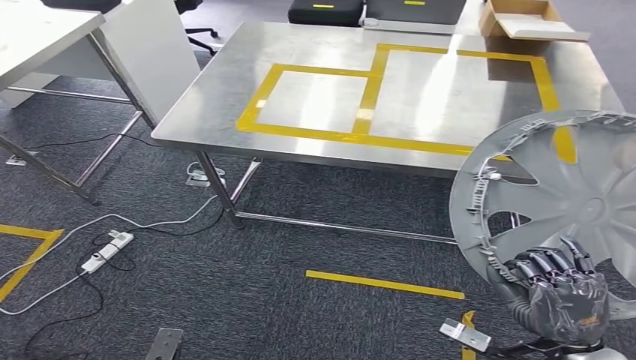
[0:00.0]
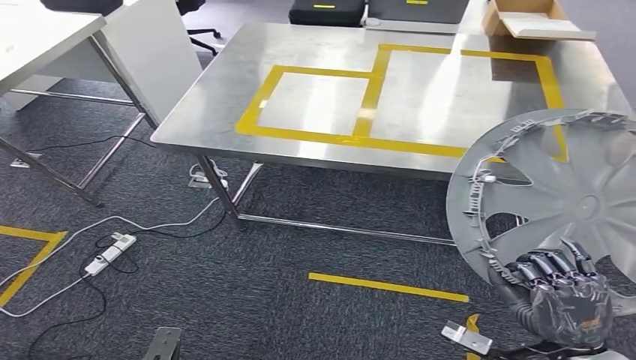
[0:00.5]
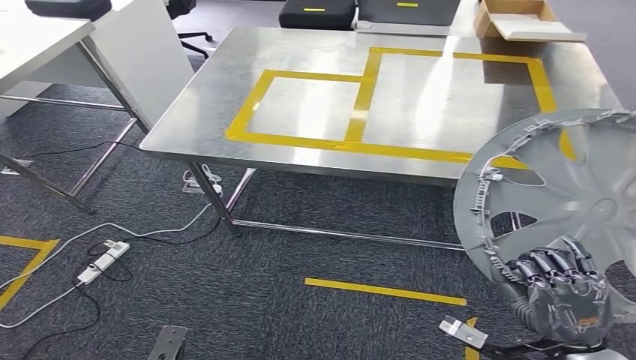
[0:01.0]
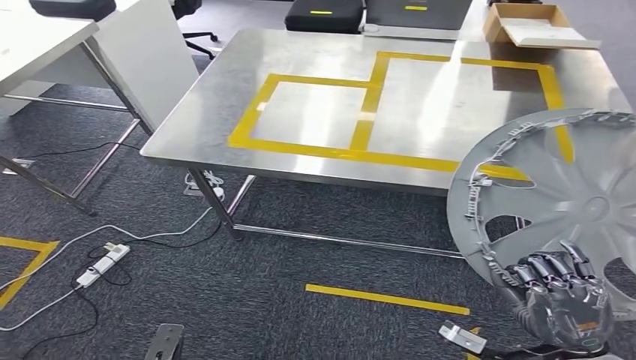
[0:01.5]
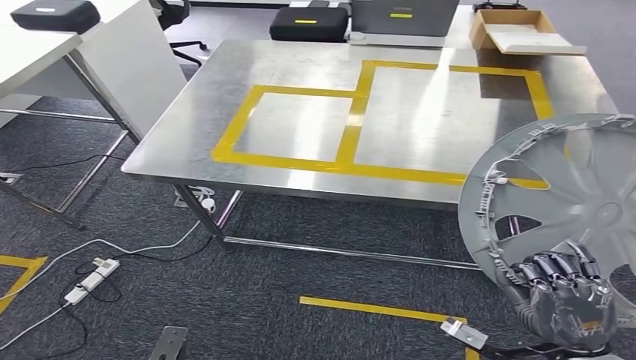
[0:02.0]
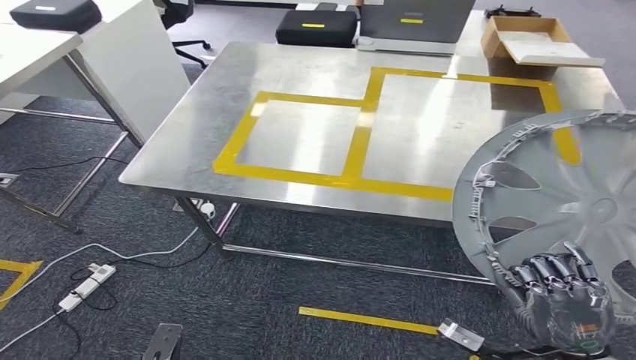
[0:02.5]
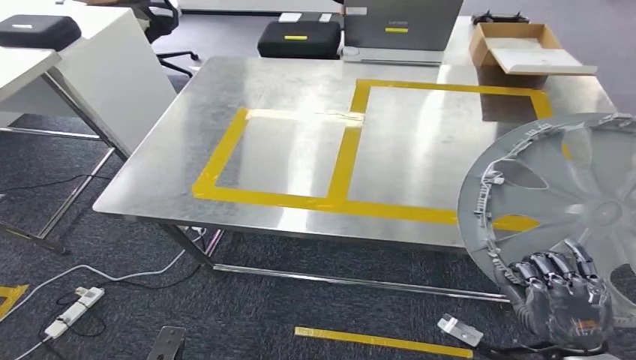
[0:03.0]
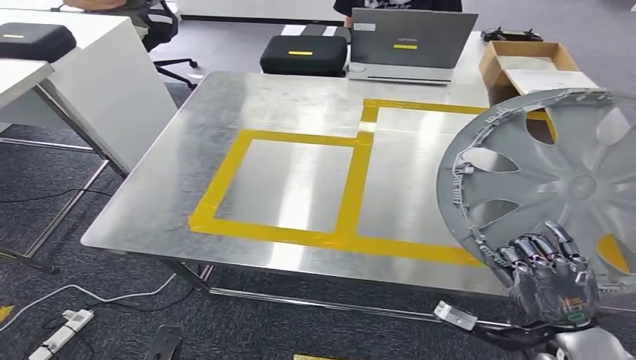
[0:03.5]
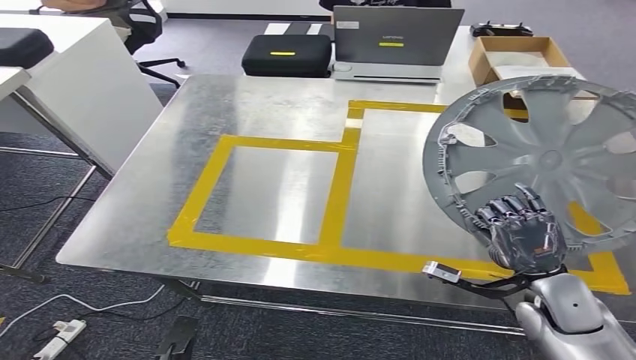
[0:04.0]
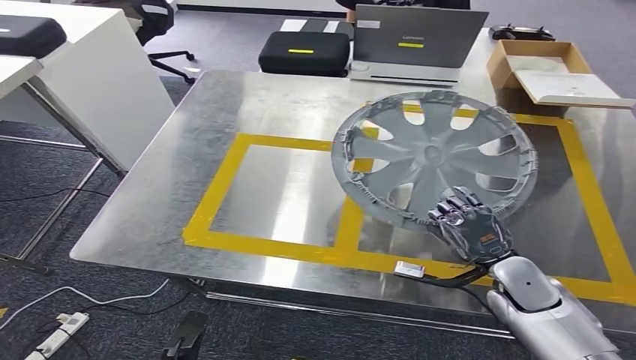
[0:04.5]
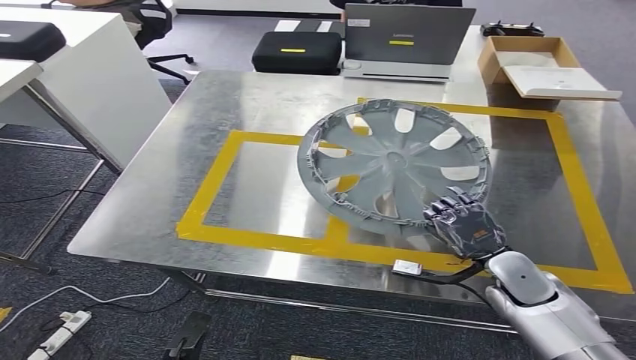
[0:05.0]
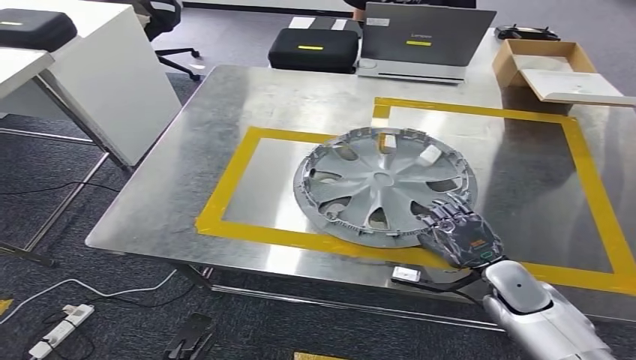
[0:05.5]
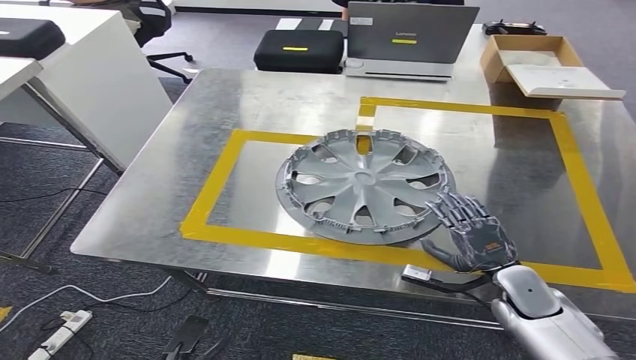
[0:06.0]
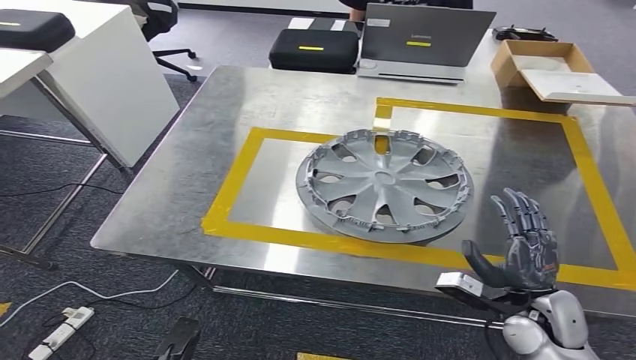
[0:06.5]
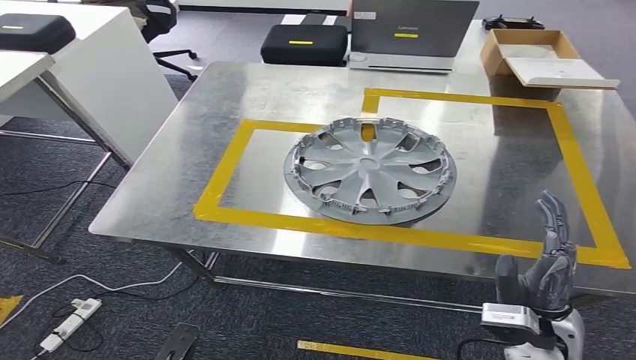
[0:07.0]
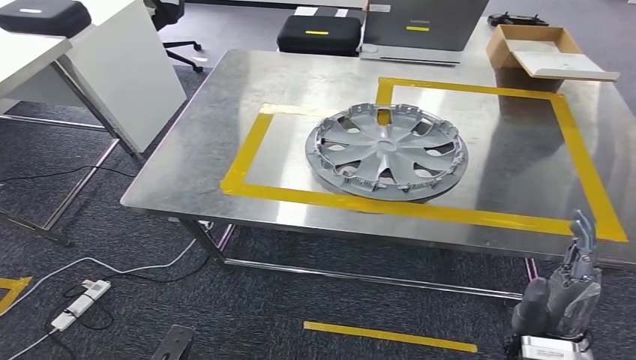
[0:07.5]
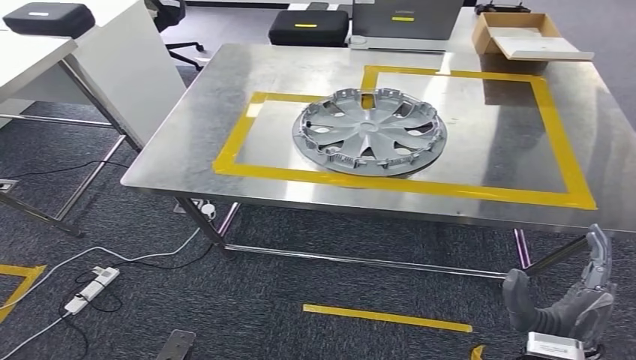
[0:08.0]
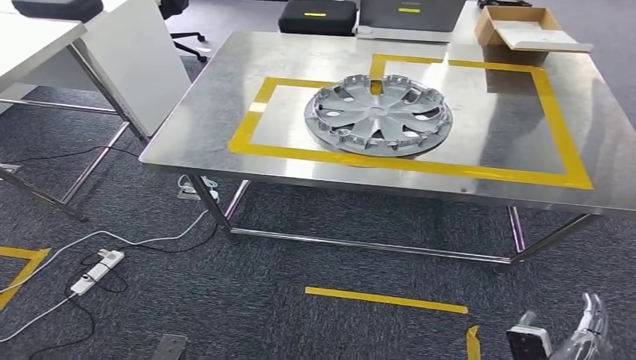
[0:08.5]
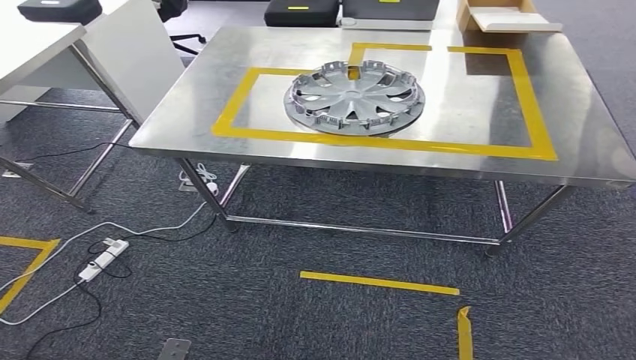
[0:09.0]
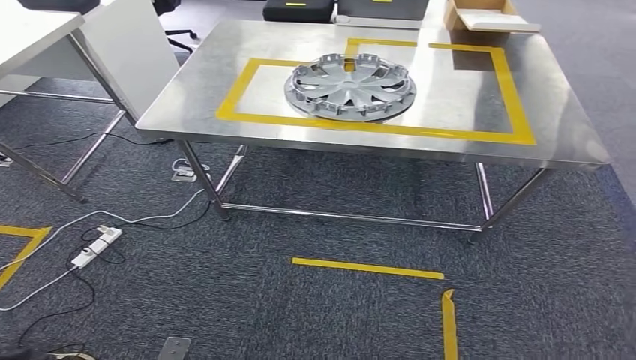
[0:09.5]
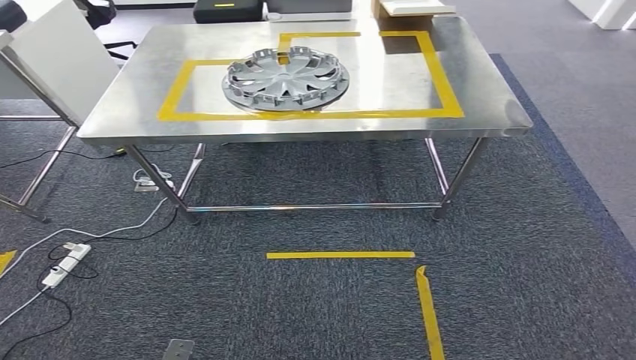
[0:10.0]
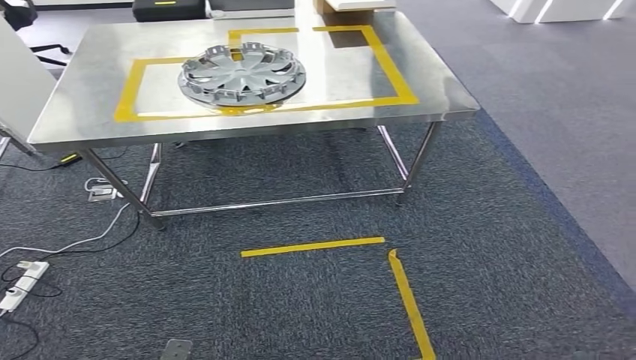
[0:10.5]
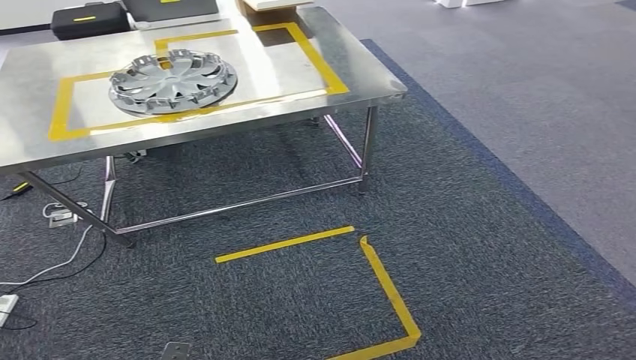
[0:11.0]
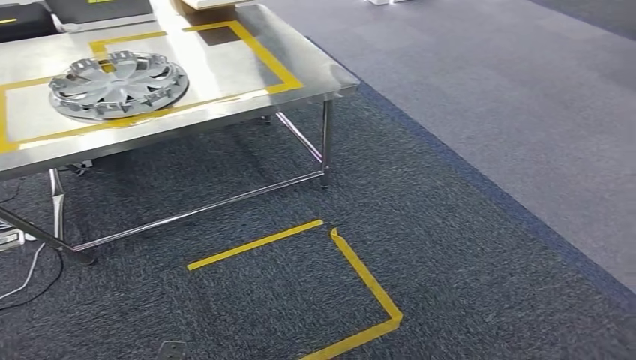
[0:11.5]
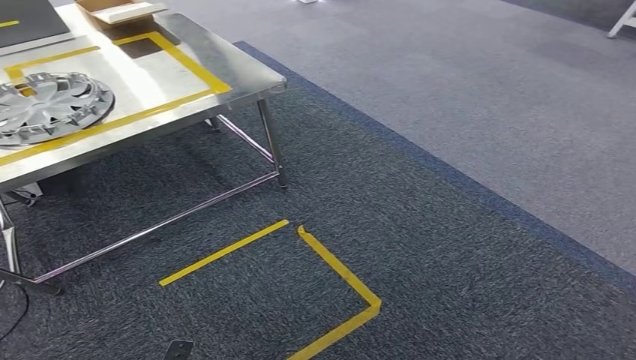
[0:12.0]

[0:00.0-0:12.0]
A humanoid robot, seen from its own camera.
Step, 0:00.0 to 0:07.5: Insert the small component into the corresponding slot on the workbench.

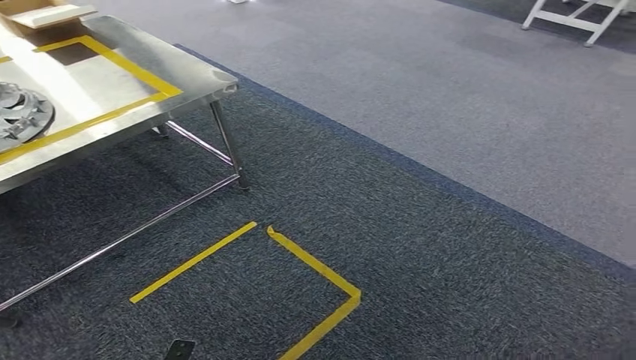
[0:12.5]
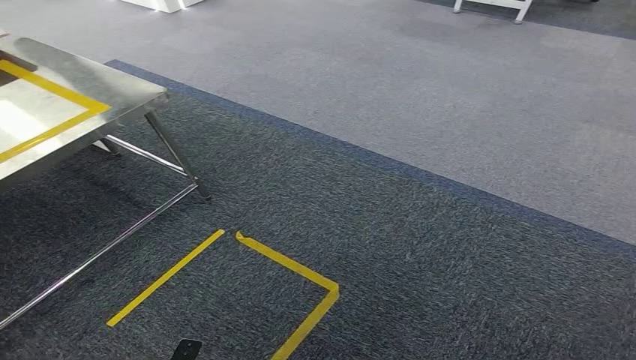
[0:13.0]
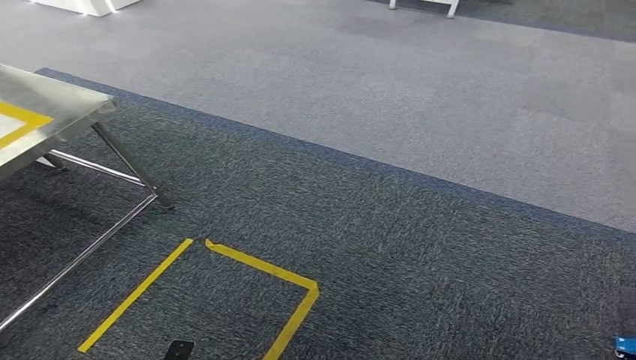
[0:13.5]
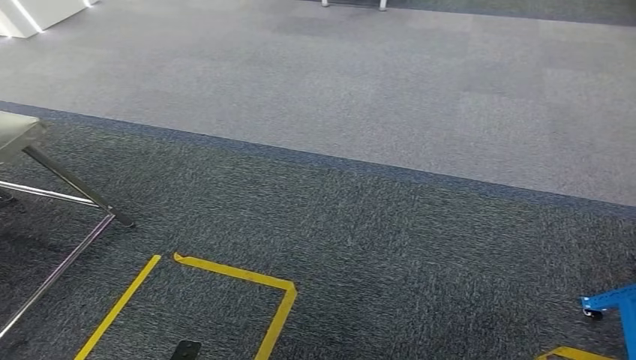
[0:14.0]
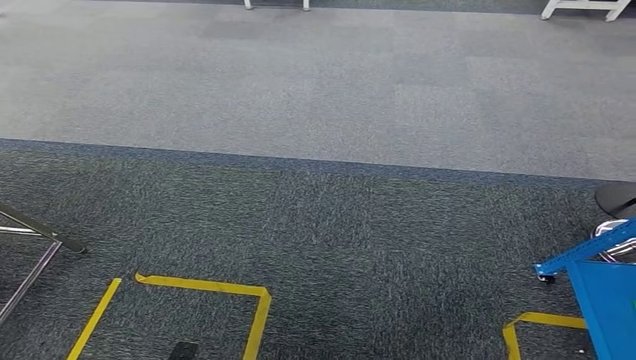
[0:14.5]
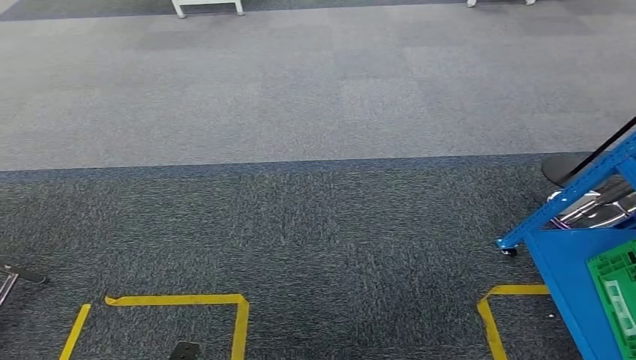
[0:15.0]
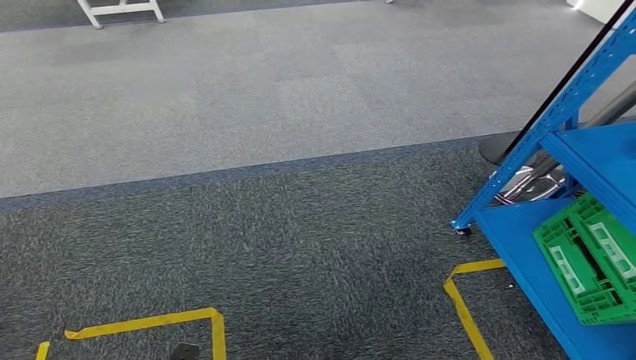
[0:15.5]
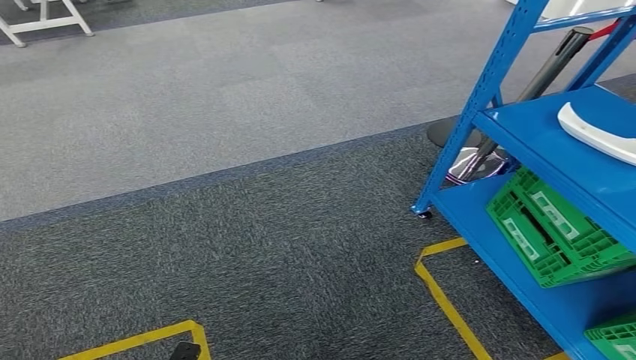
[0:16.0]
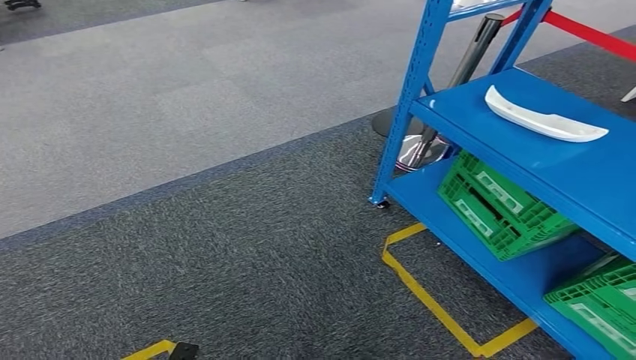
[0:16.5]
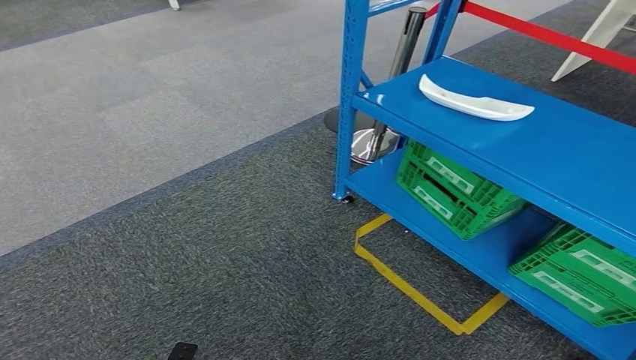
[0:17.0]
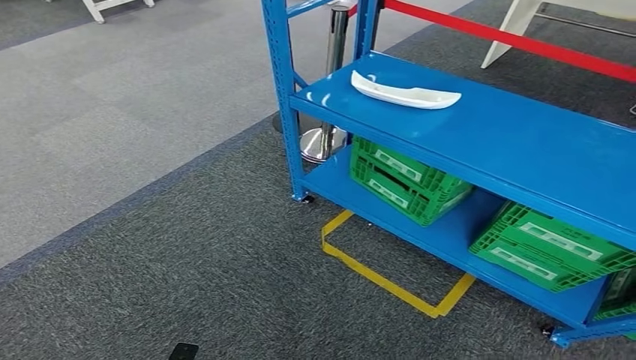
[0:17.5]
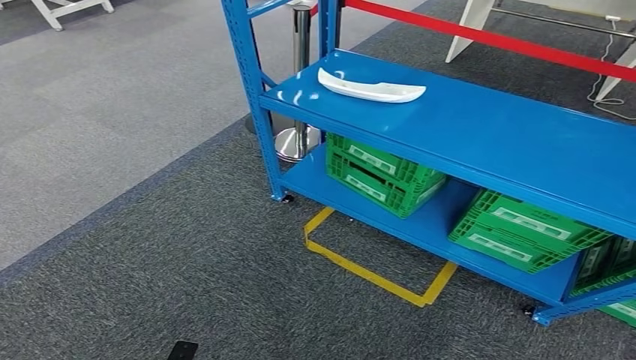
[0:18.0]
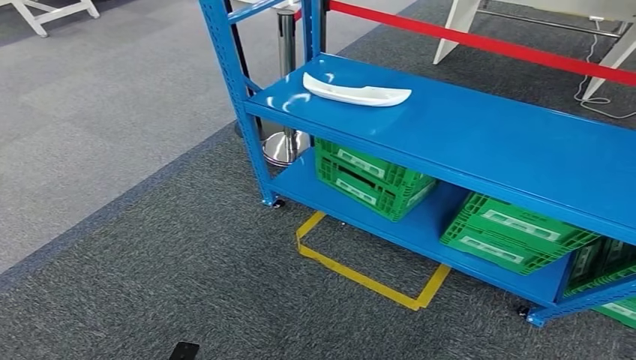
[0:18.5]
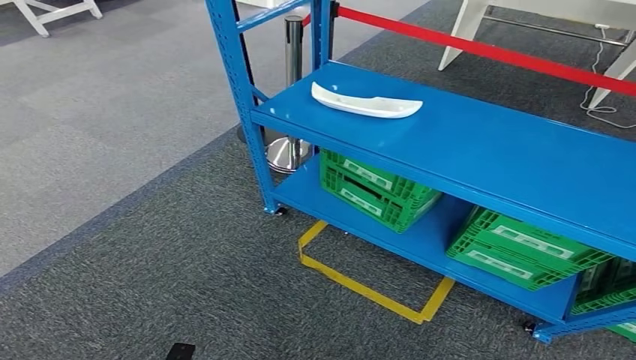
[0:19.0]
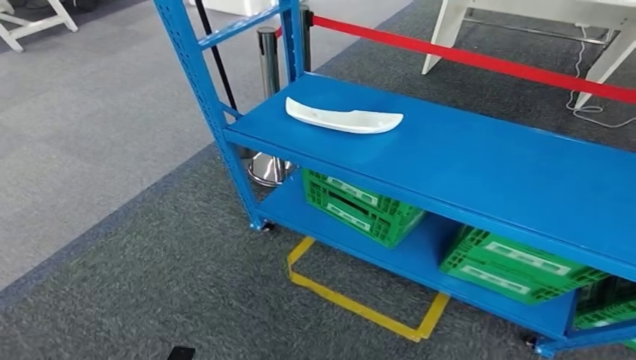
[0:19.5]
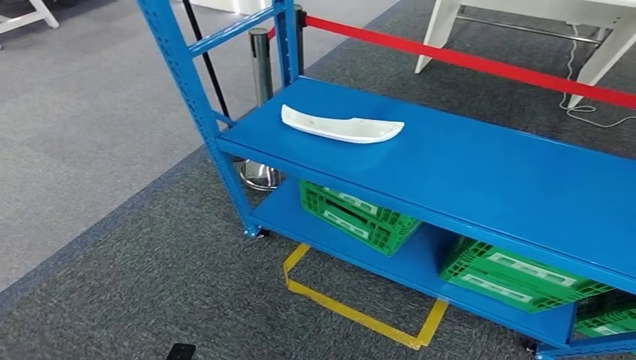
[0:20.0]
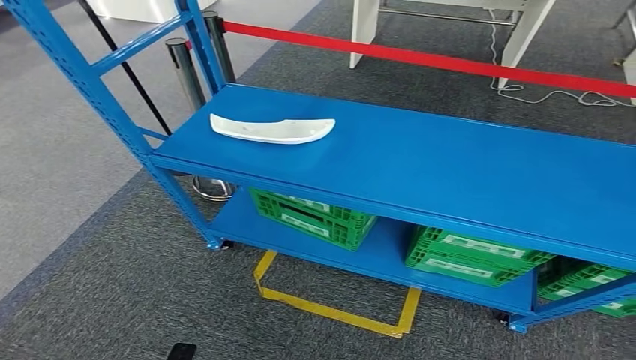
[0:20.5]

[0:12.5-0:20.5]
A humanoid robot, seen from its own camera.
Step, 0:12.5 to 0:20.5: Return to the initial position at the workbench.
